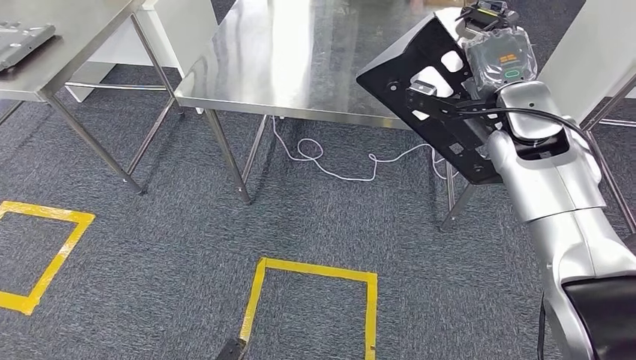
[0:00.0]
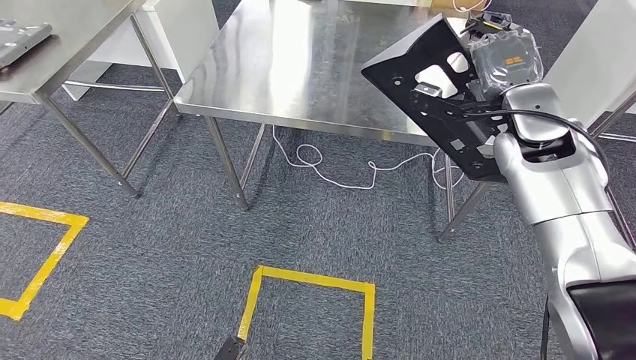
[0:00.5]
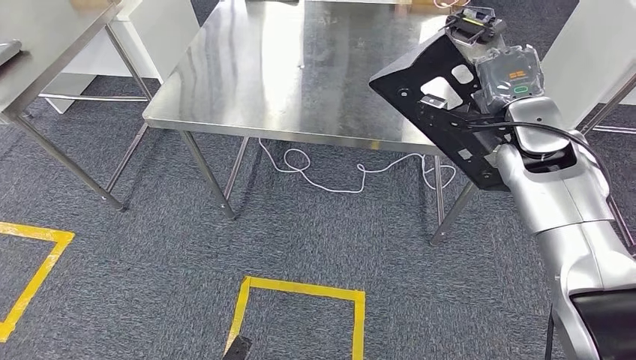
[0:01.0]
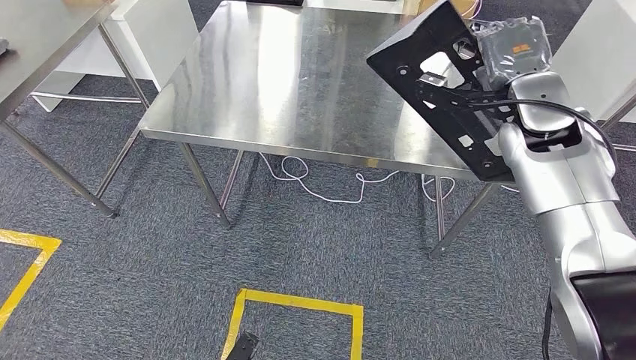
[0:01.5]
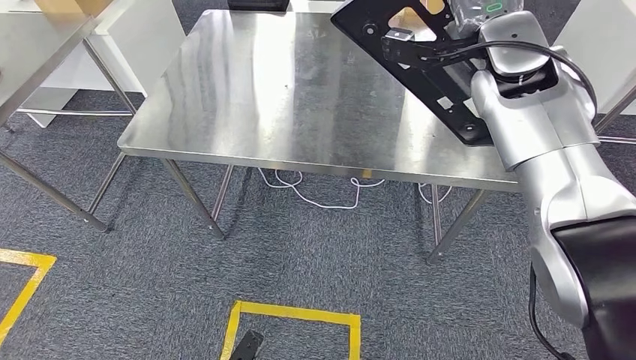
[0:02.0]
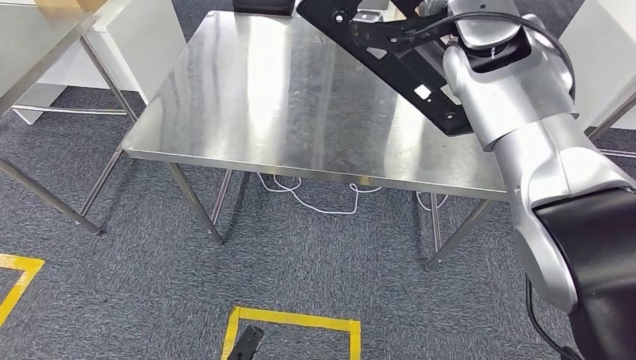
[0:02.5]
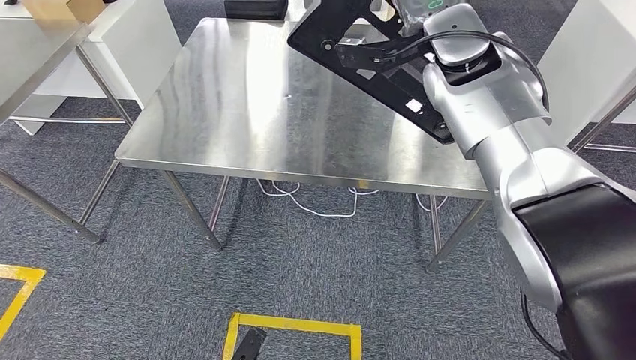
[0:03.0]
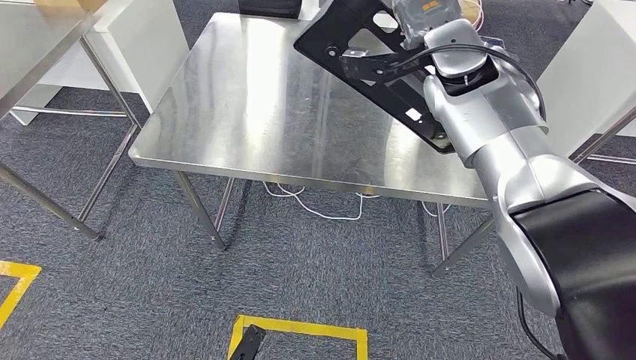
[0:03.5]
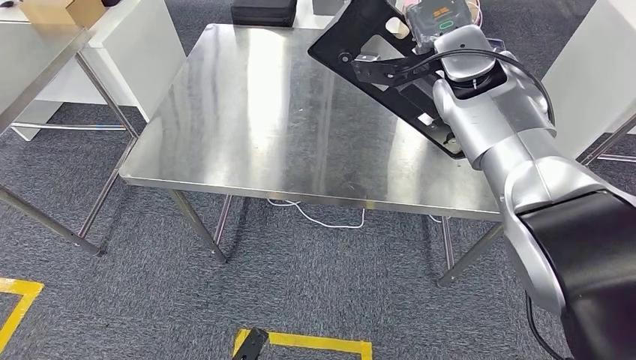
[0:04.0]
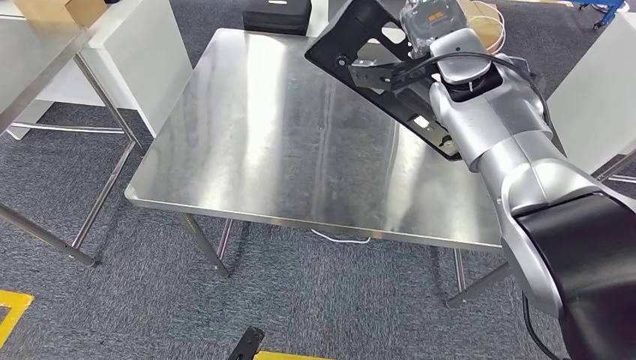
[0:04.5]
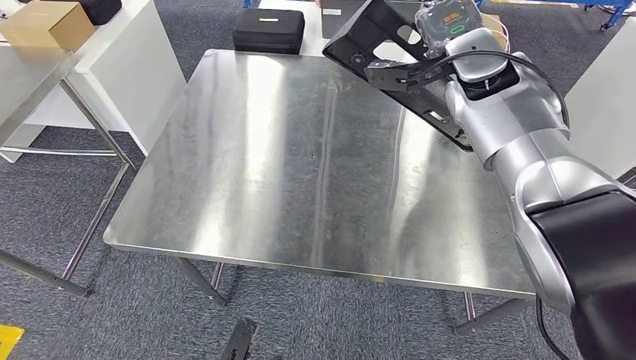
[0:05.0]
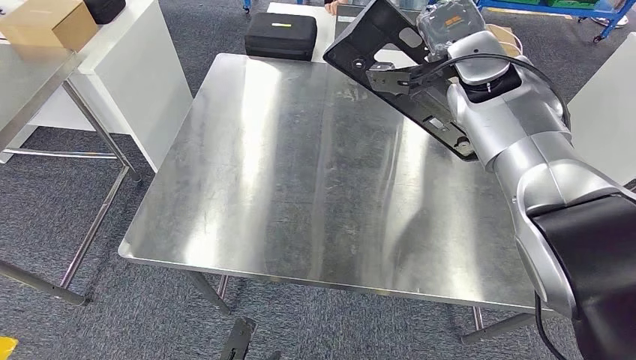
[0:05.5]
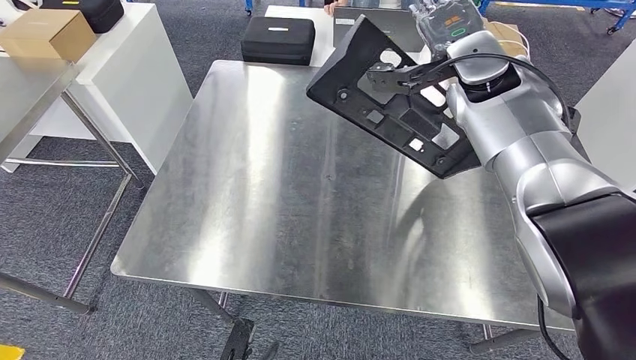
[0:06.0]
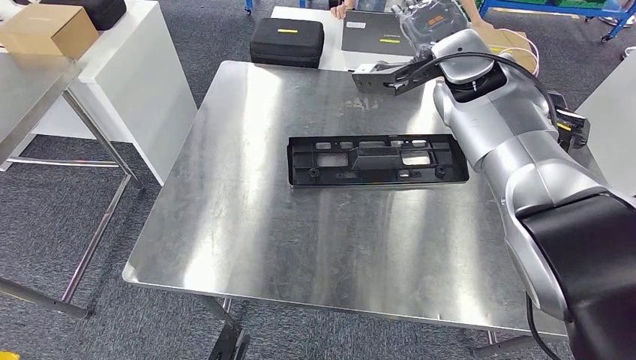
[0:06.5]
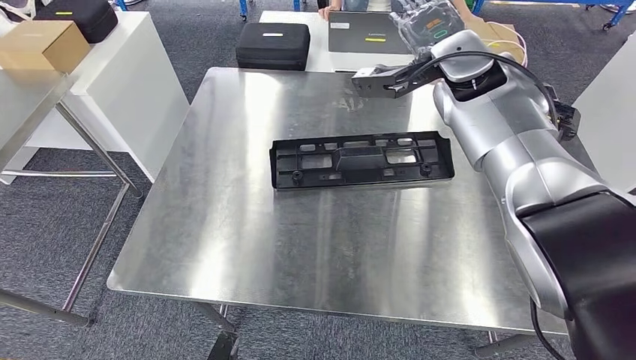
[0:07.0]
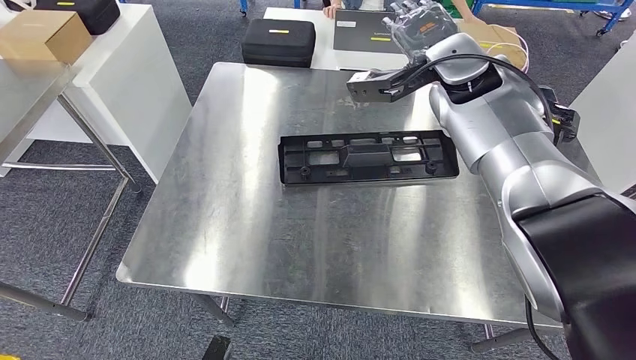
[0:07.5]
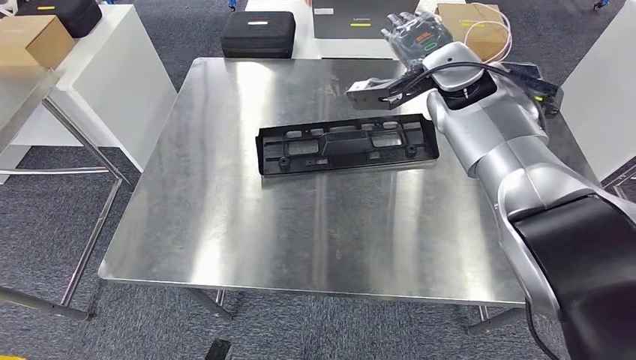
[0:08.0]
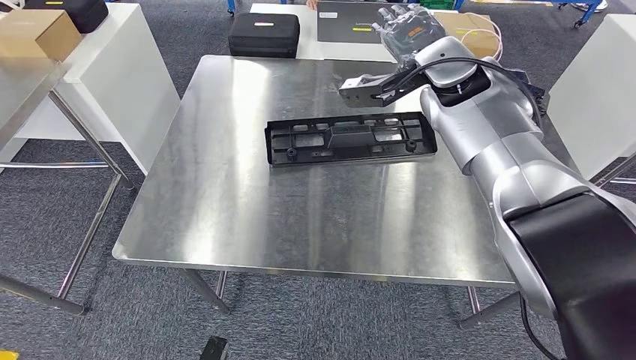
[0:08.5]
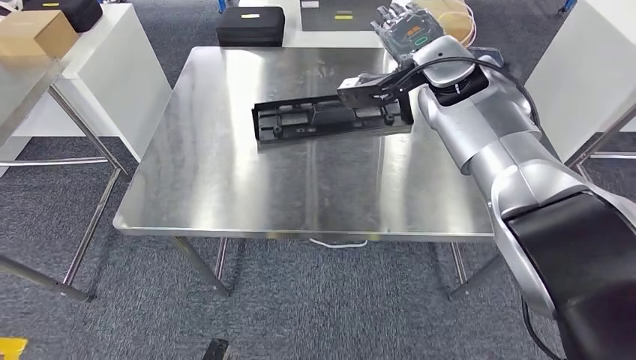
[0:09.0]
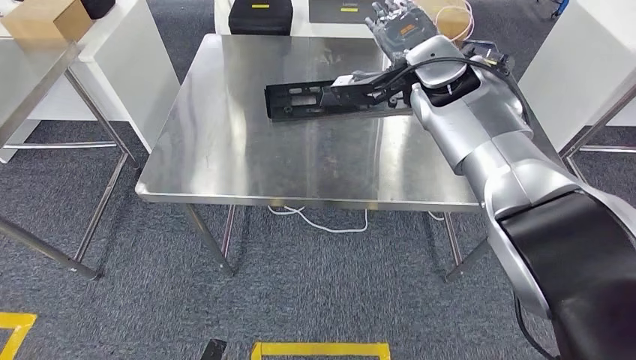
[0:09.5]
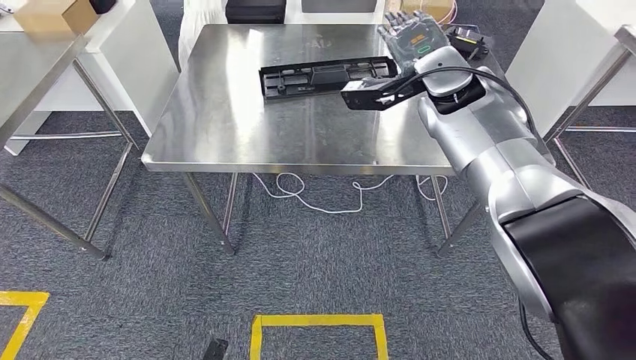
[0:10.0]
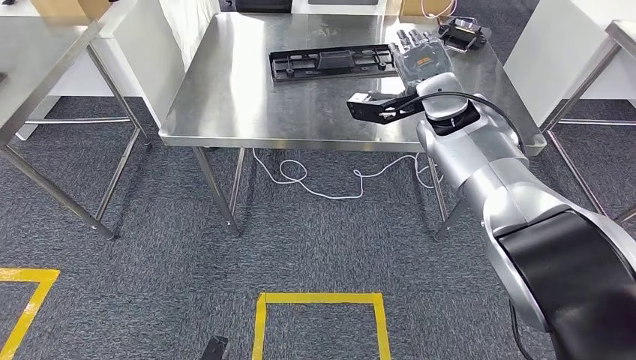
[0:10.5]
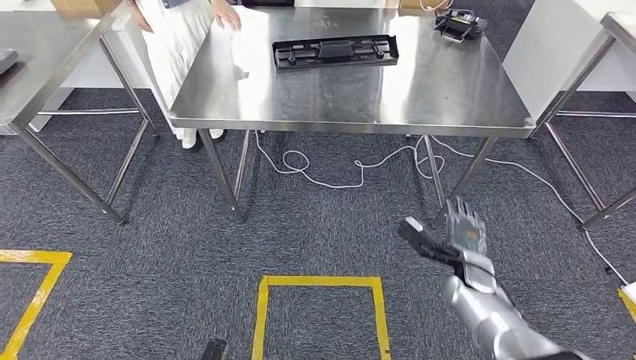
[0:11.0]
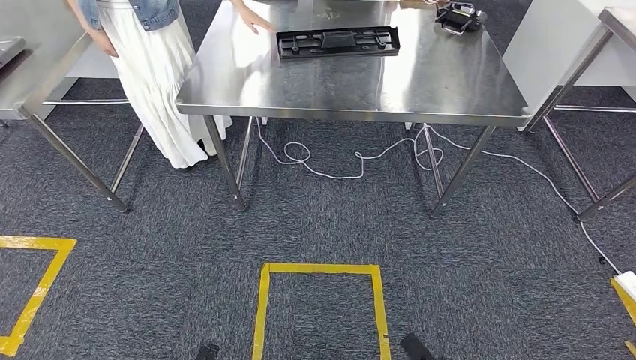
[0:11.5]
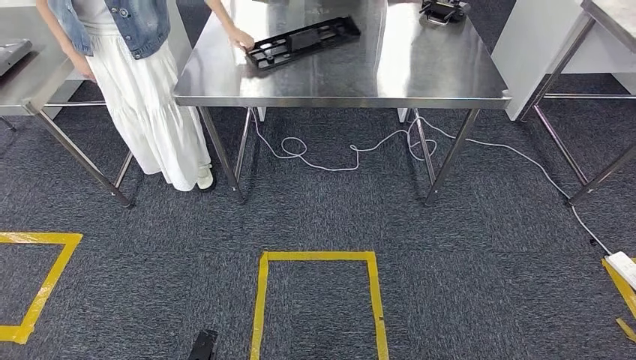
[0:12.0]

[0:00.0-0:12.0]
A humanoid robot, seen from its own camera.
Step, 0:00.0 to 0:07.5: Insert the large parts into the corresponding slots on the workbench.

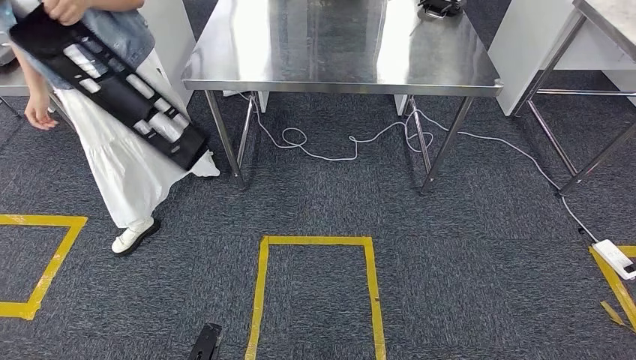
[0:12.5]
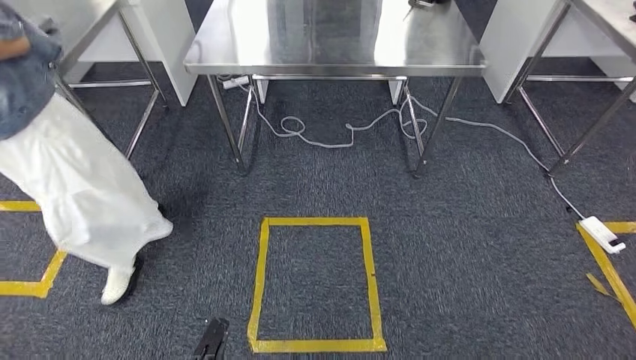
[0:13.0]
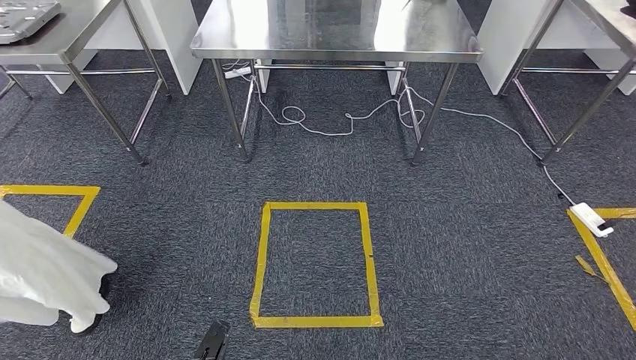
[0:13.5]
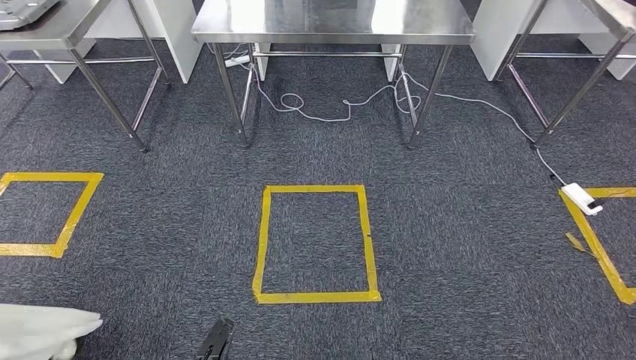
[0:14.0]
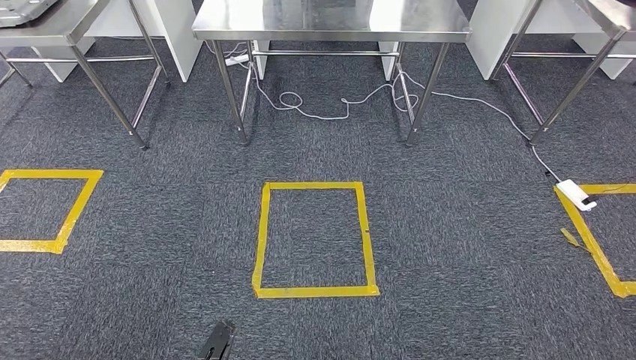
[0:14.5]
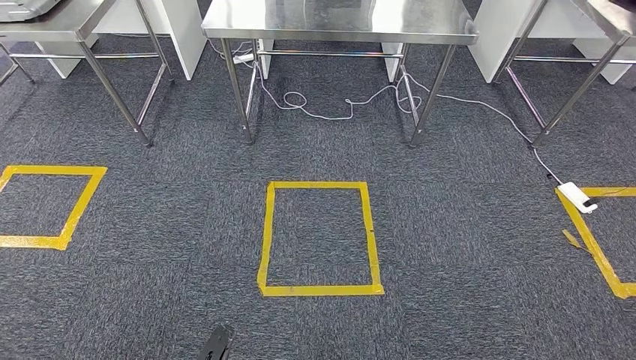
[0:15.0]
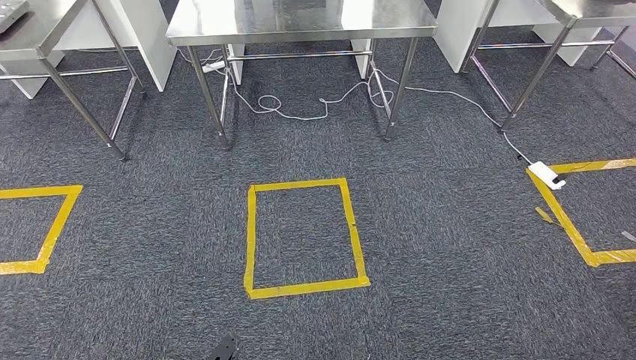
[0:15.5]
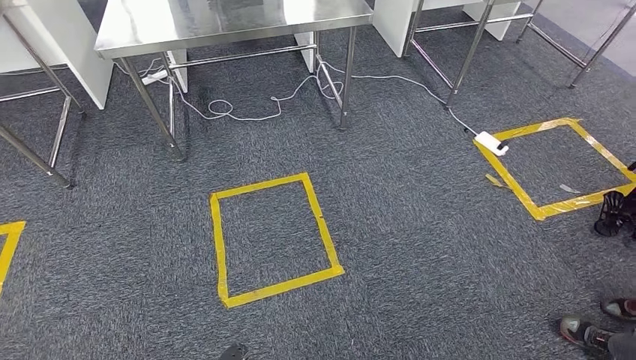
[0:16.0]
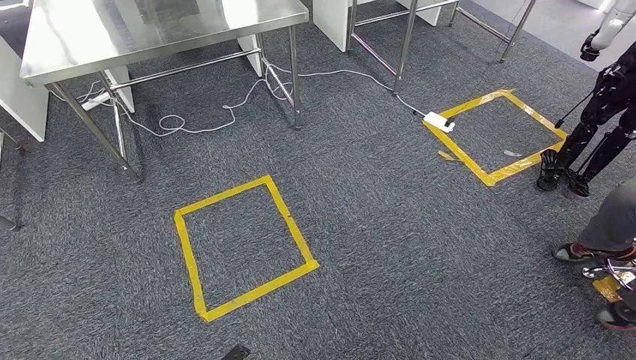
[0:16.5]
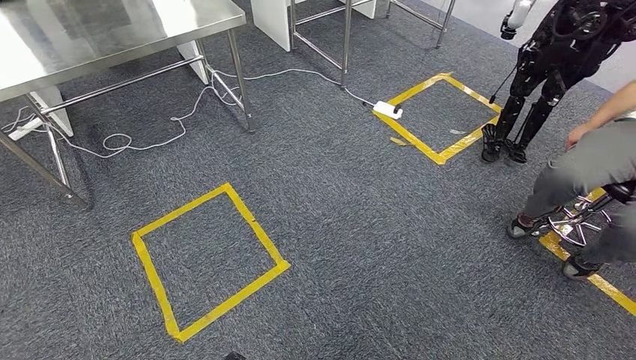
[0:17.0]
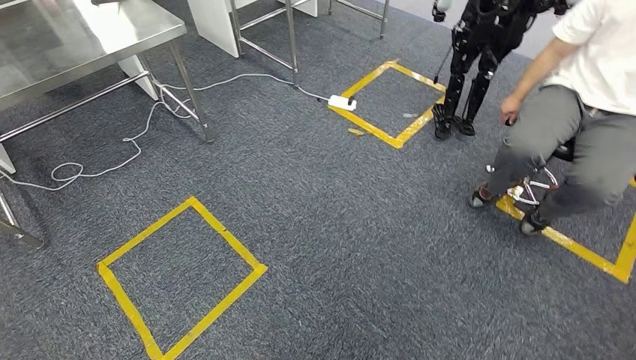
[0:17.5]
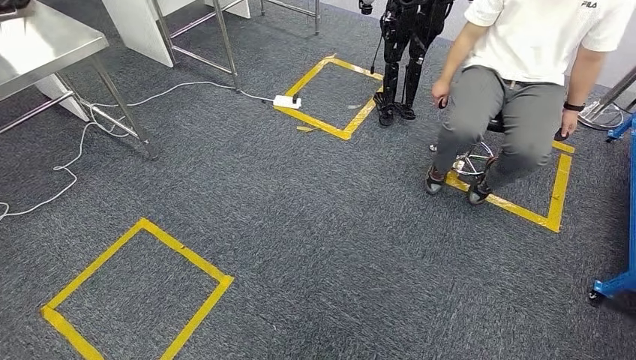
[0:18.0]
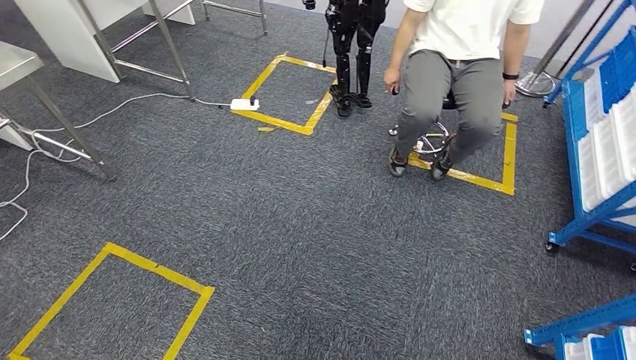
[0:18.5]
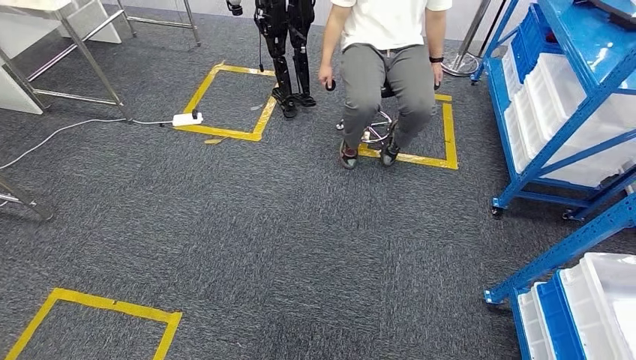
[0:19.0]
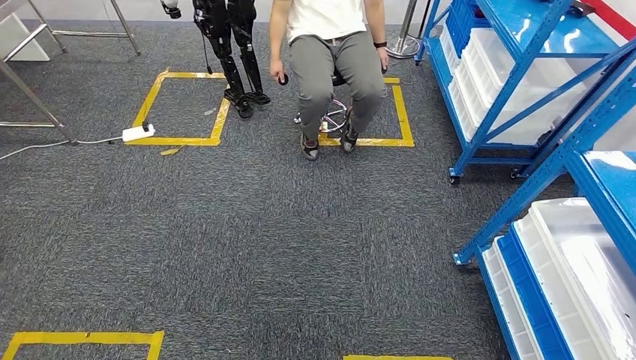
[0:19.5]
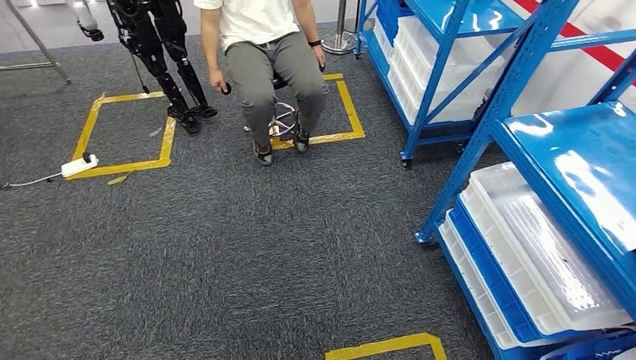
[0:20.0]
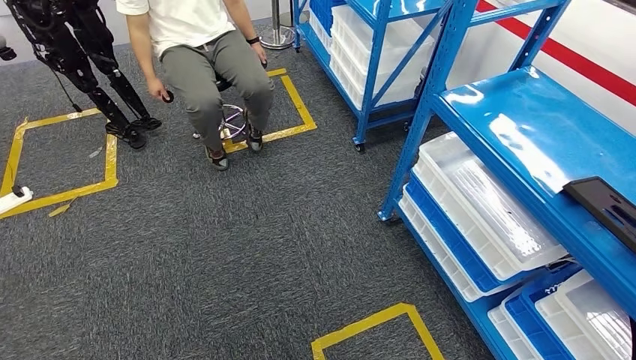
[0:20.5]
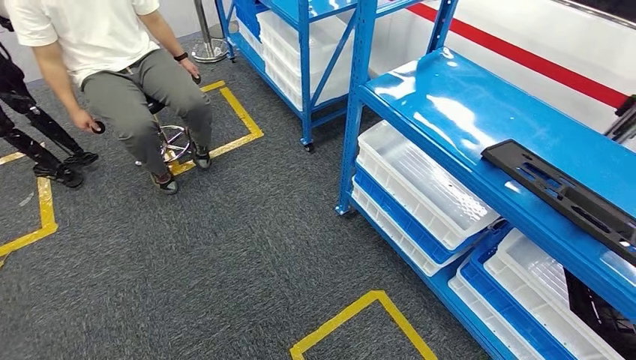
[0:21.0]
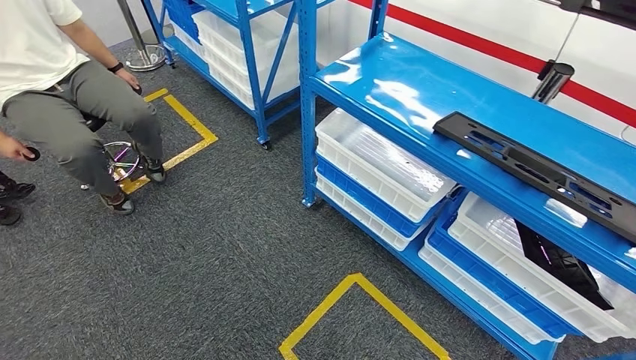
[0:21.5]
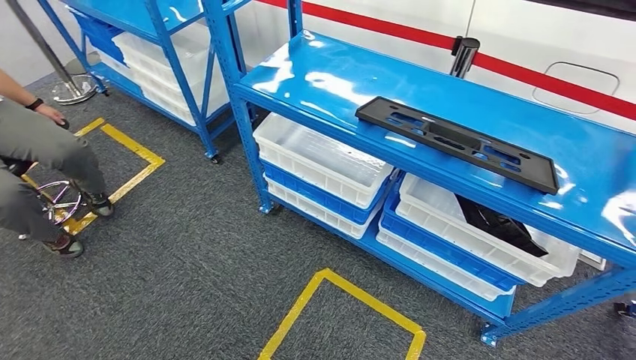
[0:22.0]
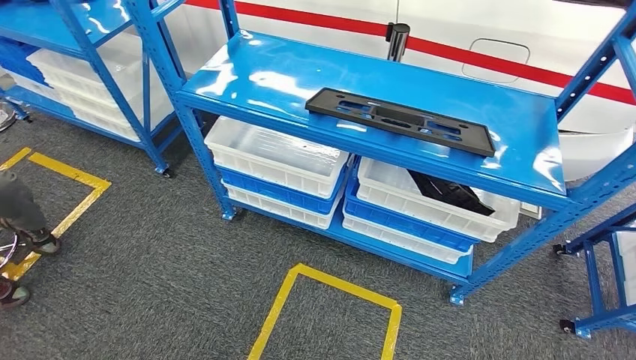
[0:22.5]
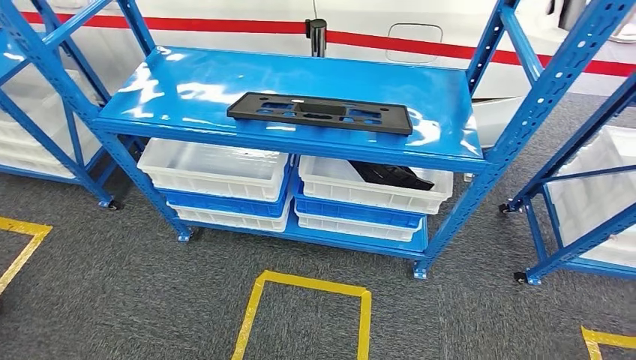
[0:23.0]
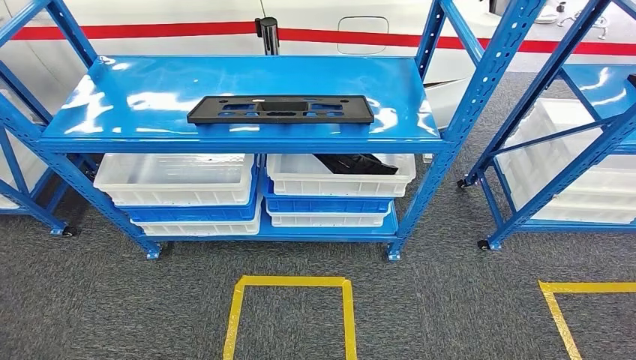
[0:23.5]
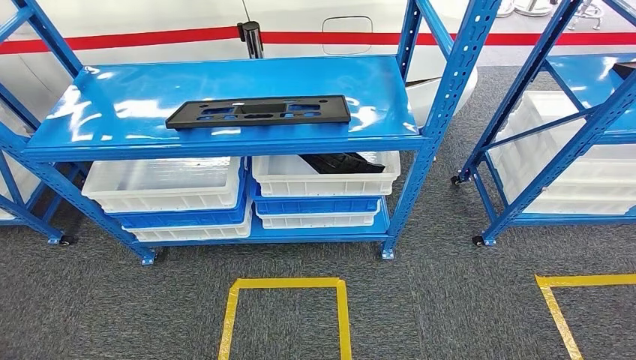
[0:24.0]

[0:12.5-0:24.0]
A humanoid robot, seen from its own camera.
Step, 0:12.5 to 0:24.0: Return to the initial position at the shelf.
